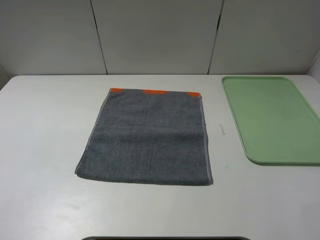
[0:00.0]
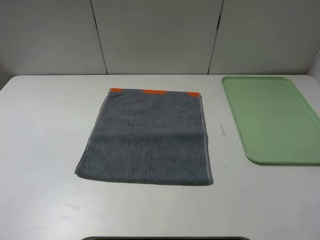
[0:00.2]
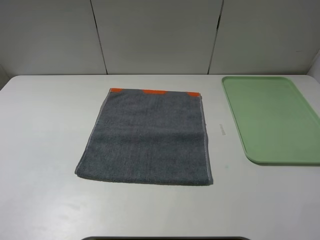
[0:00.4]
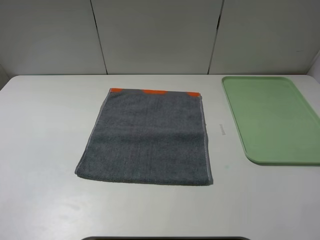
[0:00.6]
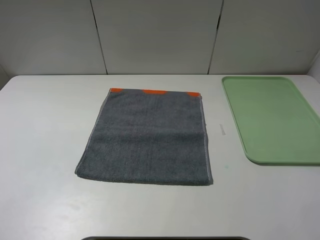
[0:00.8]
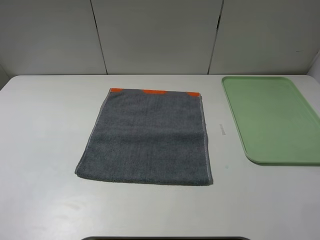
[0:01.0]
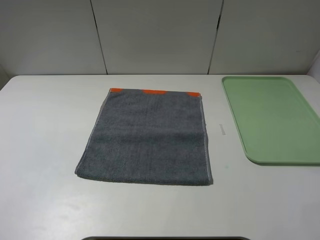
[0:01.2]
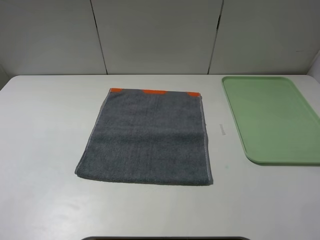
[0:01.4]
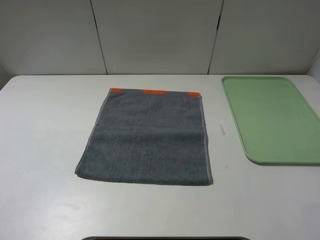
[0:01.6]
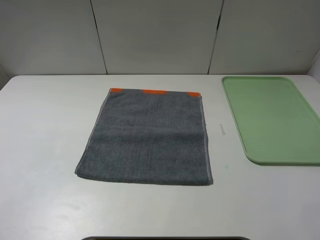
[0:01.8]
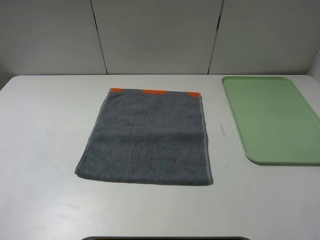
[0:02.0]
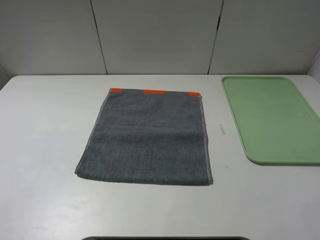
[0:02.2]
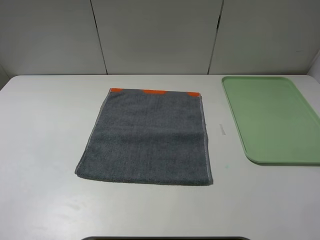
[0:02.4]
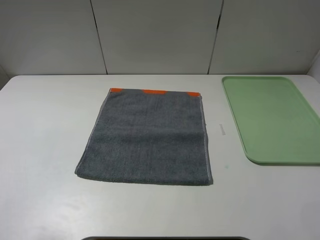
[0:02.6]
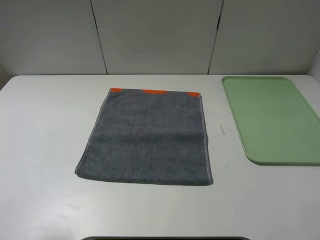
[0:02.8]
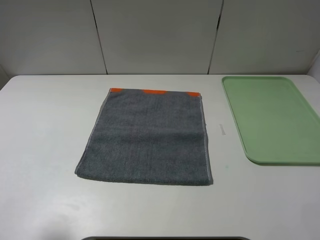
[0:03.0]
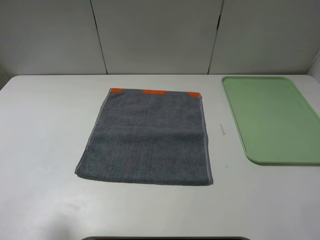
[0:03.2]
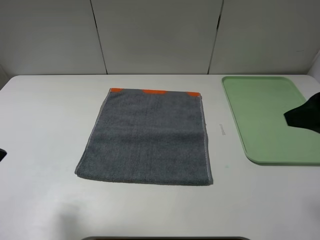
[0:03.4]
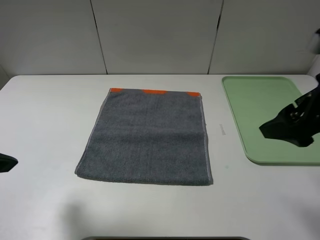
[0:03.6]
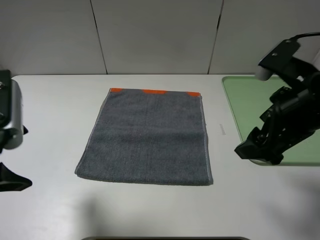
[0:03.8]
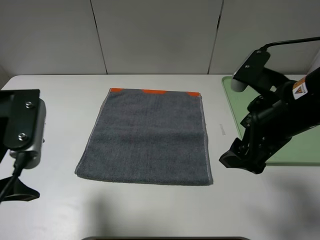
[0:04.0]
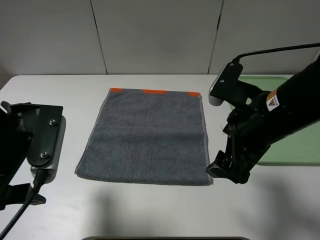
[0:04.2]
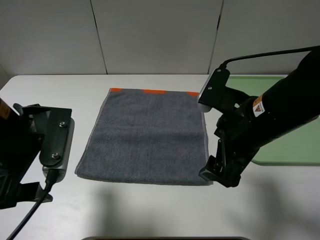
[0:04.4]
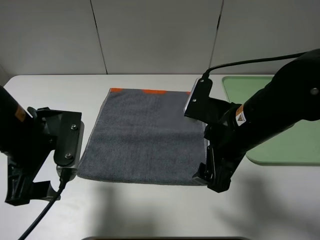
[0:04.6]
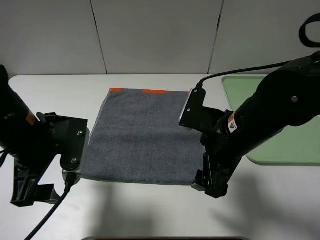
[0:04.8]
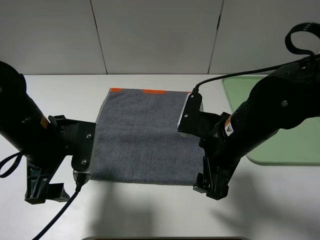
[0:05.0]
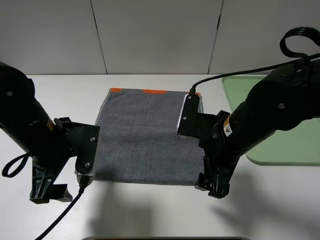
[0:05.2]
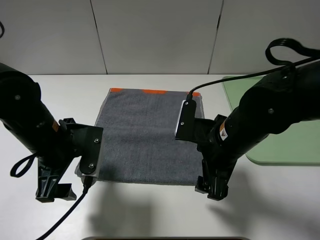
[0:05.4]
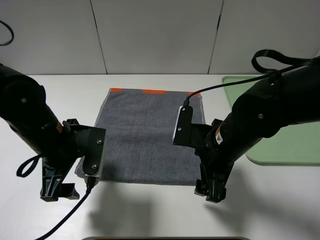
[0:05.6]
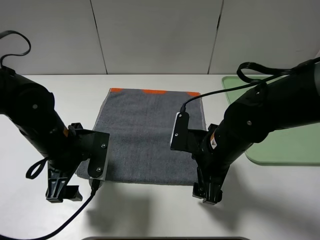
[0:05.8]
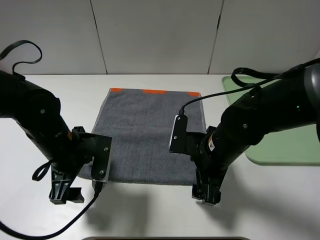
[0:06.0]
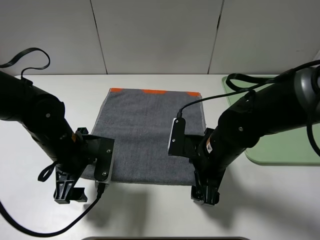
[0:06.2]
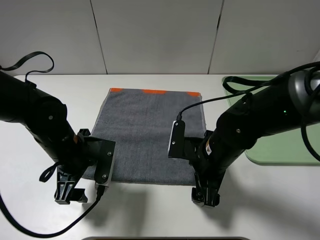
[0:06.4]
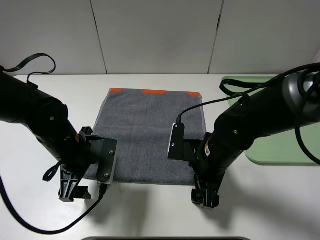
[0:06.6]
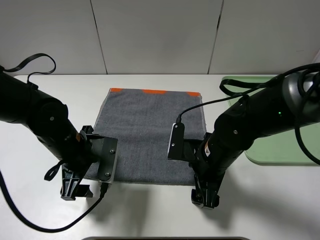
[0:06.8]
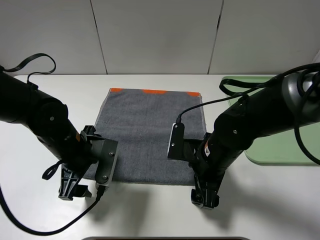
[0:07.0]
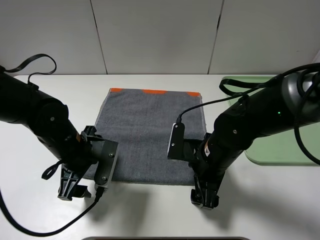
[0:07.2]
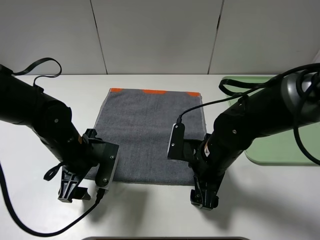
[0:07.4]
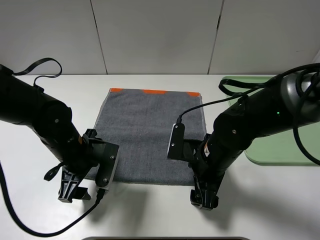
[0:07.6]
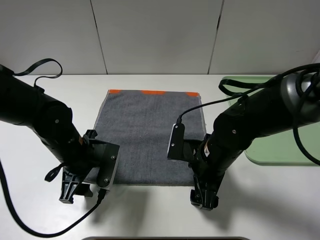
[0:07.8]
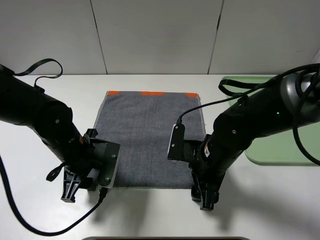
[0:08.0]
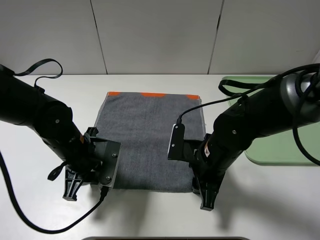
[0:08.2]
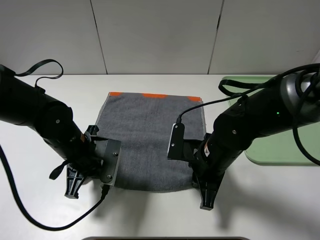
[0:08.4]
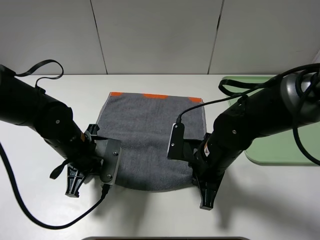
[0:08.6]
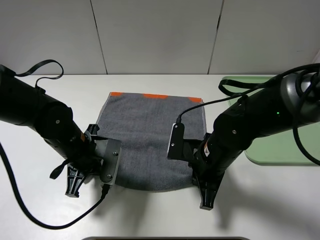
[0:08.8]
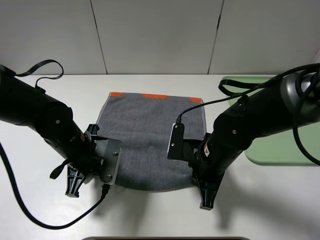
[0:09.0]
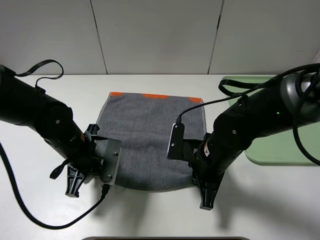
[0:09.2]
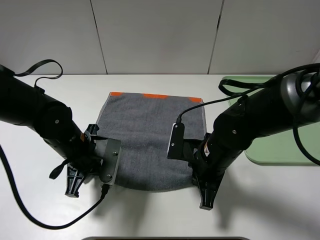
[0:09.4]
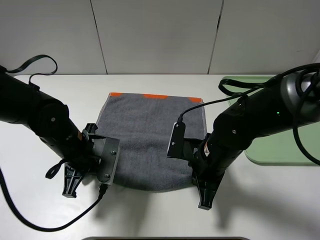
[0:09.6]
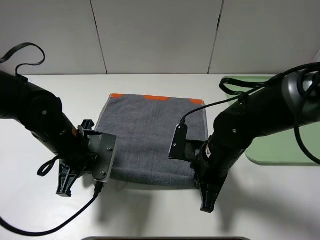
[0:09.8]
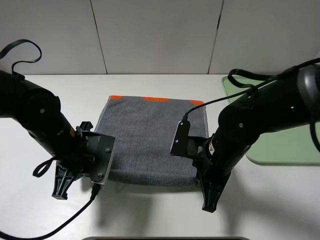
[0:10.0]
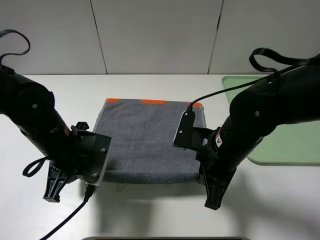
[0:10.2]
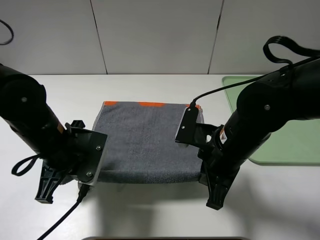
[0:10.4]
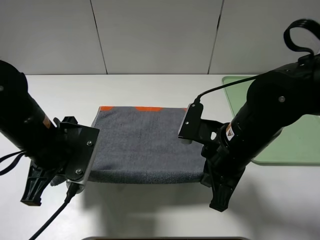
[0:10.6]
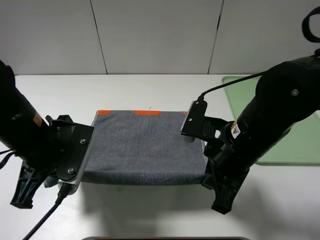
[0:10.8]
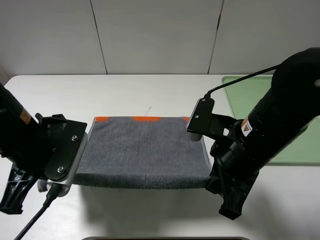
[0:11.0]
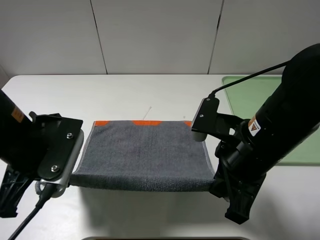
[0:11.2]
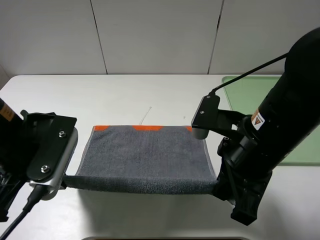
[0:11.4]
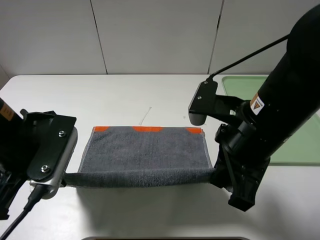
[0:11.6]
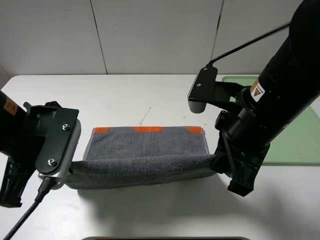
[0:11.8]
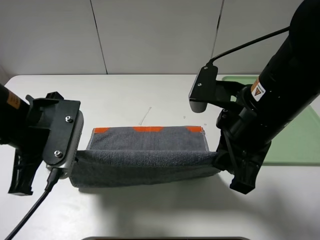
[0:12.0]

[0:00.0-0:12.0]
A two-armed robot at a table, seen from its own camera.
0:00.0 to 0:01.6: Neither gripper changes place.
0:01.6 to 0:03.0: The left gripper shifts some 10 cm forward.
0:03.0 to 0:04.4: The right gripper goes some 20 cm to the left, downward and forward; the left gripper shifts approximately 15 cm to the right, downward and forward.
0:04.4 to 0:06.0: The two grippers go some 10 cm downward.
0:06.0 to 0:07.6: There are only small adjustments of the grippers.
0:07.6 to 0:09.0: The right gripper closes. The left gripper closes its fingers.
0:09.0 to 0:10.4: The two grippers go some 5 cm upward.
0:10.4 to 0:12.0: Both grippers move upward, approximately 10 cm.

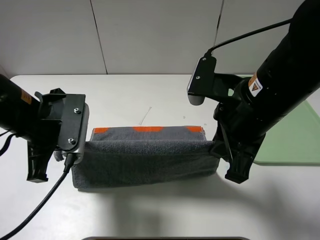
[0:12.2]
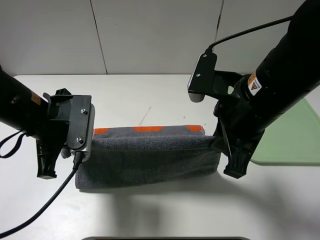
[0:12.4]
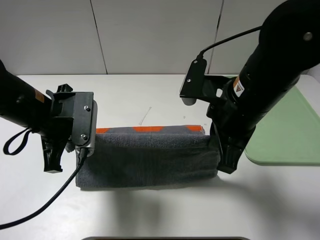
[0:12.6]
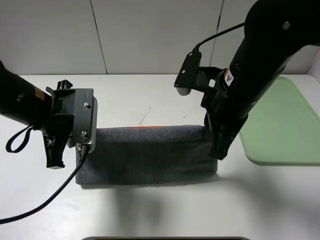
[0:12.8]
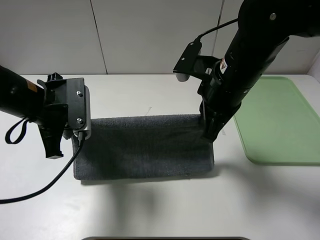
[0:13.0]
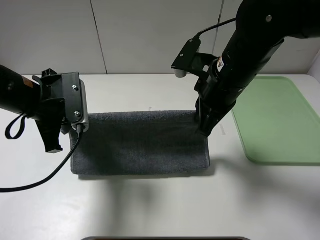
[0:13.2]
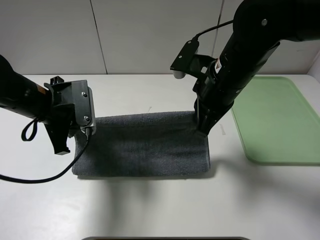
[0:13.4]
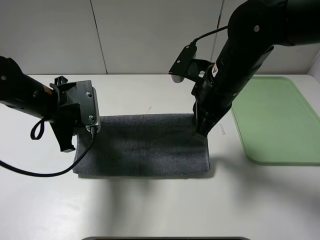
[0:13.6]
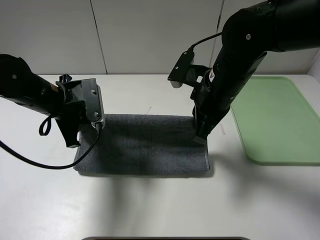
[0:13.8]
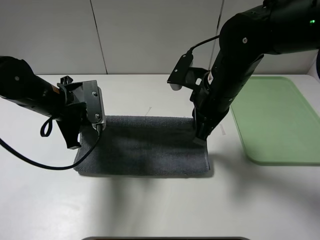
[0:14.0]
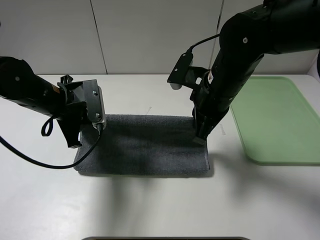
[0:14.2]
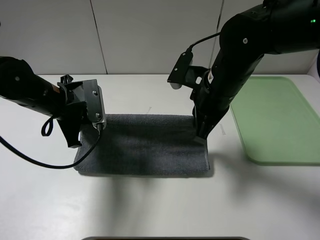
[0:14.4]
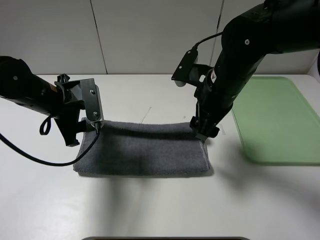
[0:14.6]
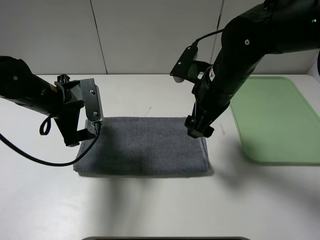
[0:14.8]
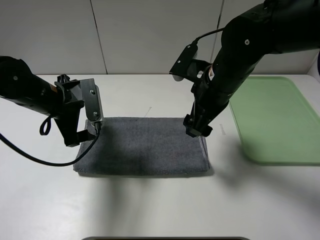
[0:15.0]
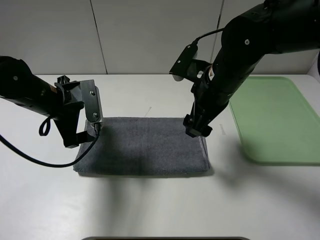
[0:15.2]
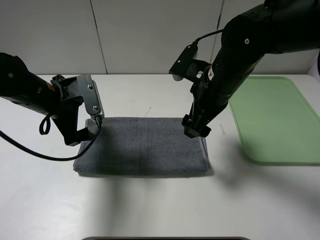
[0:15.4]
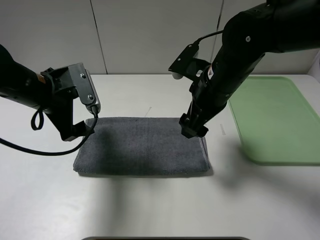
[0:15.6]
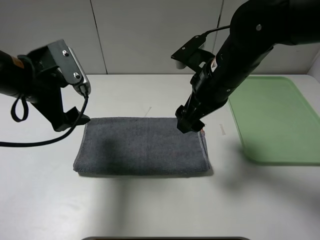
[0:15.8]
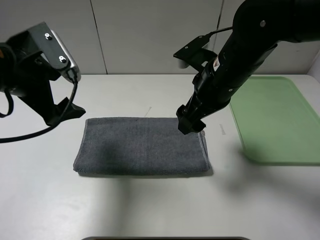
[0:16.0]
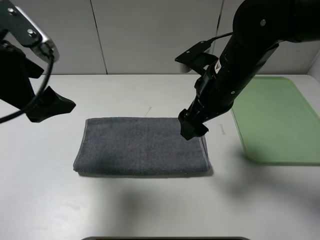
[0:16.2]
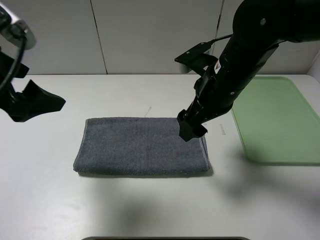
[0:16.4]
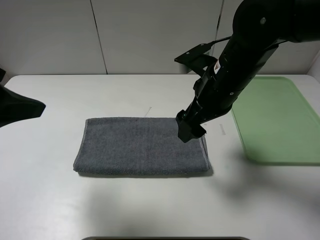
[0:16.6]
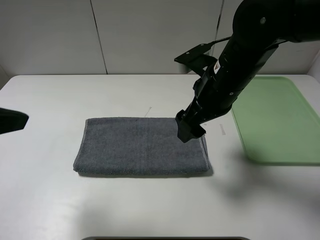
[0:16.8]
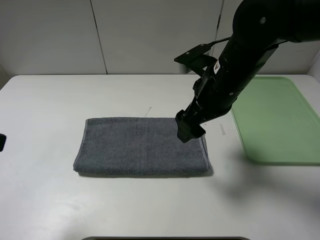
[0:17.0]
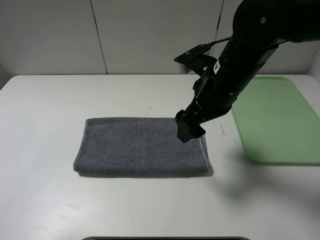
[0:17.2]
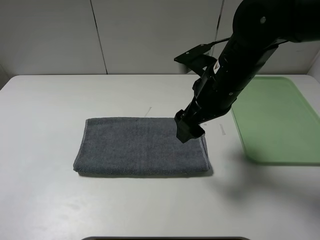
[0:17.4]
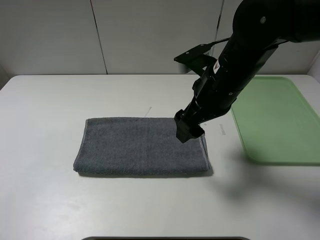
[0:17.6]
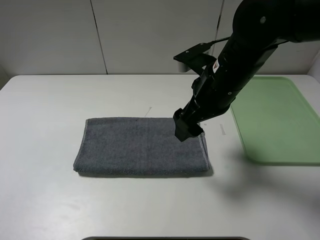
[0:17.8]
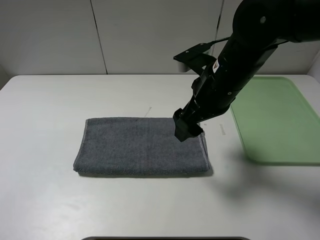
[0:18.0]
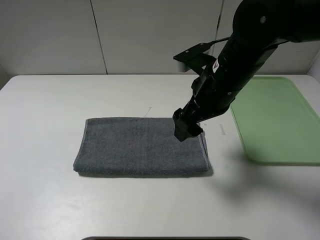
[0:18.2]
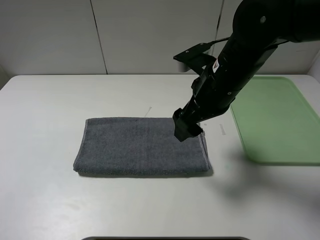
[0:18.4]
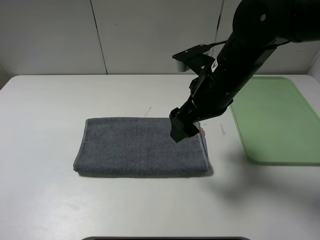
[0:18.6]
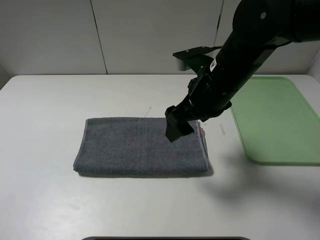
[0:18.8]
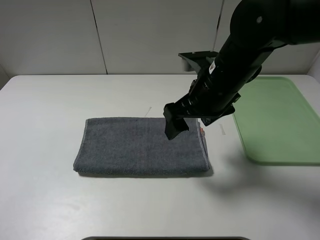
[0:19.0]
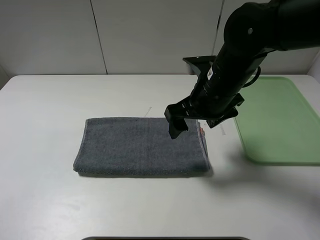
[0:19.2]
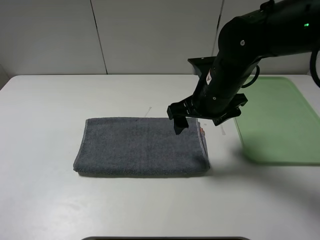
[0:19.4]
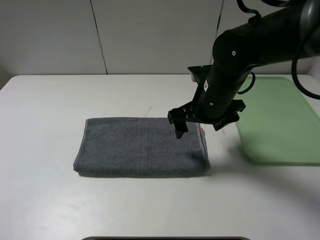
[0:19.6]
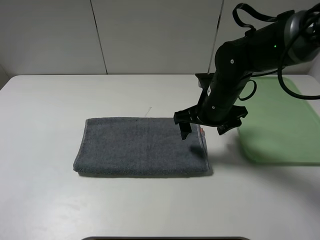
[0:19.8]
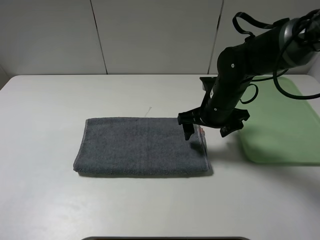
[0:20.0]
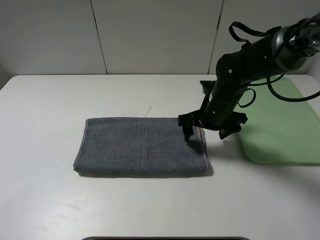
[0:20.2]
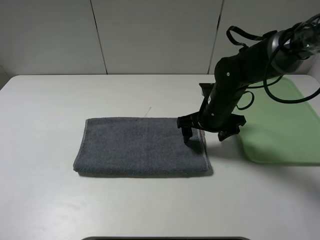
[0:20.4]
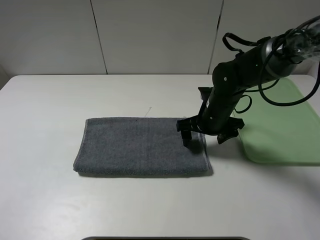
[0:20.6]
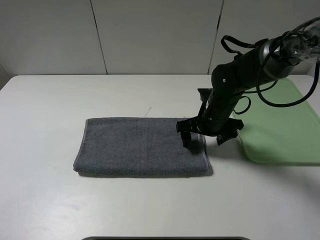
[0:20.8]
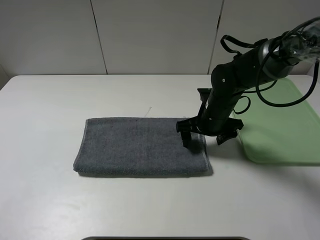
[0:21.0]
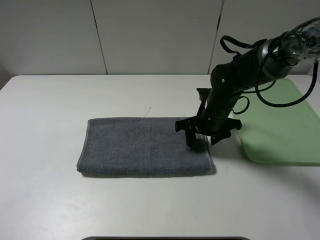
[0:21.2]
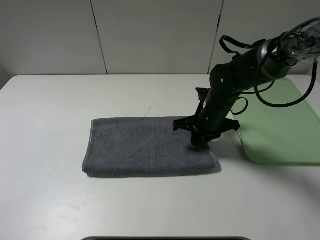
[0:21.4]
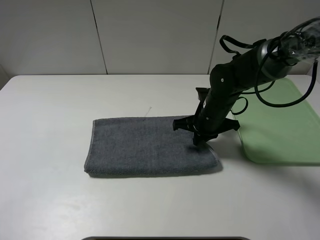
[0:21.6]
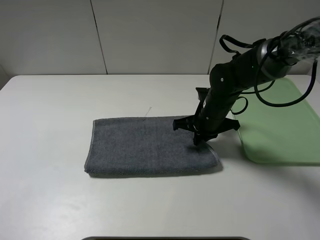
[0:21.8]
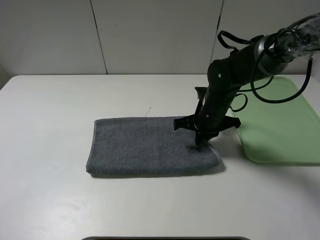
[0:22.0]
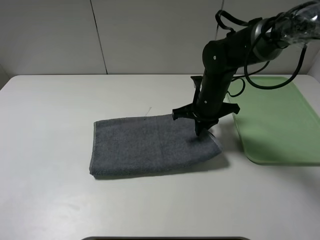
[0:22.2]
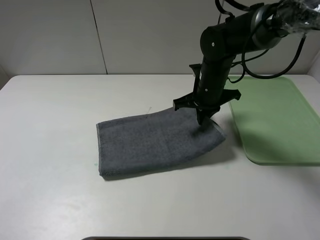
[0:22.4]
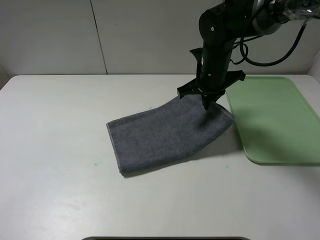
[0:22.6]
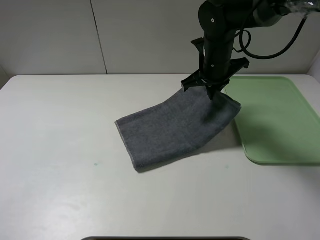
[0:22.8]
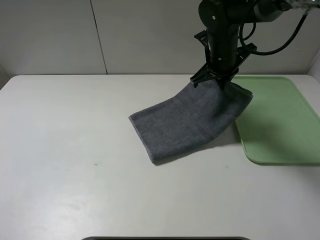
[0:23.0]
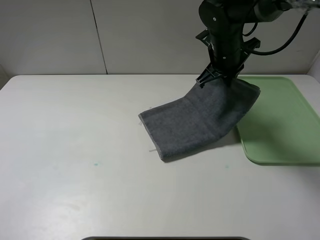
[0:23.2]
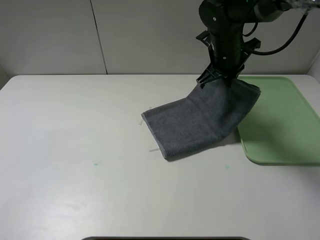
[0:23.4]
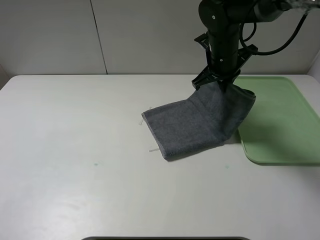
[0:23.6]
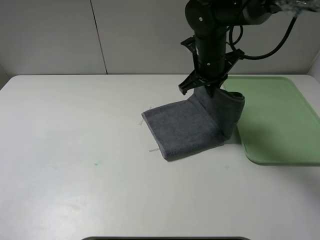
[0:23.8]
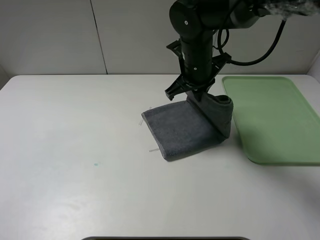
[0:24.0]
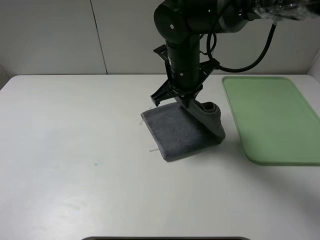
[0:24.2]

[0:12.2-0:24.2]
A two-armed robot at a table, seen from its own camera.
Step, 0:12.2 to 0:14.8: Fold the grey towel upwards.
0:12.2 to 0:13.8: Both grippers move forward, some 10 cm.
0:13.8 to 0:15.2: The left gripper opens up, while the right gripper opens.
0:15.2 to 0:16.6: The left gripper shifts approximately 20 cm upward and backward.
0:16.6 to 0:18.2: The left gripper heads backward and to the left, covering roughly 15 cm.
0:18.2 to 0:19.8: The right gripper goes about 10 cm downward.
0:19.8 to 0:21.2: The right gripper is displaced downward by roughly 5 cm, and closes up.
0:21.2 to 0:22.6: The right gripper is displaced upward and forward by about 10 cm, and closes its fingers.
0:22.6 to 0:24.2: The right gripper goes about 10 cm to the left.
